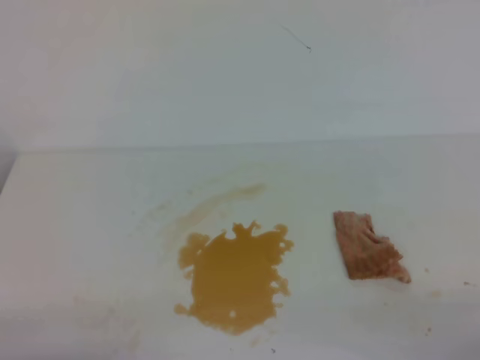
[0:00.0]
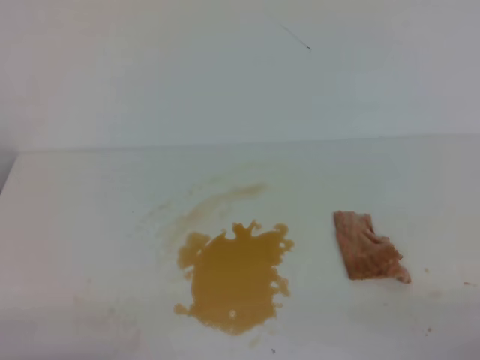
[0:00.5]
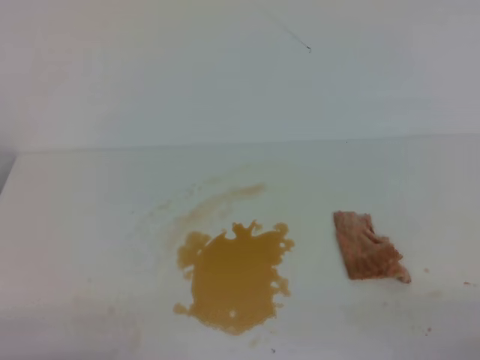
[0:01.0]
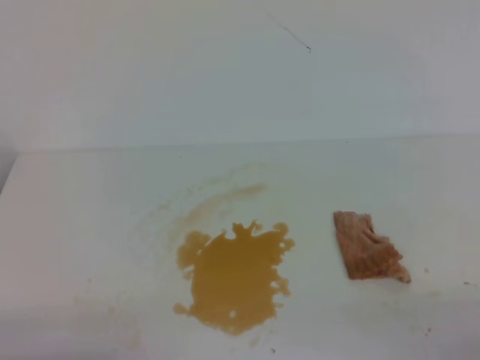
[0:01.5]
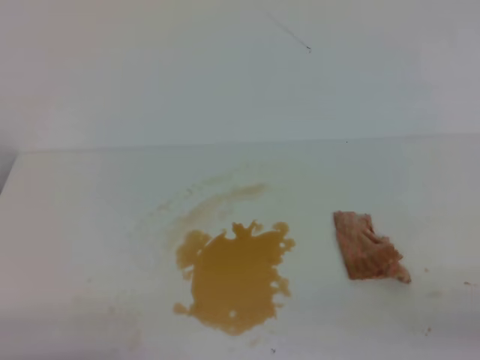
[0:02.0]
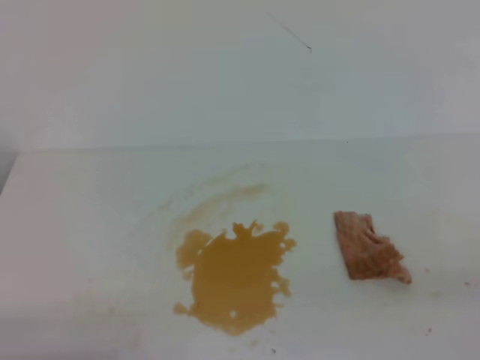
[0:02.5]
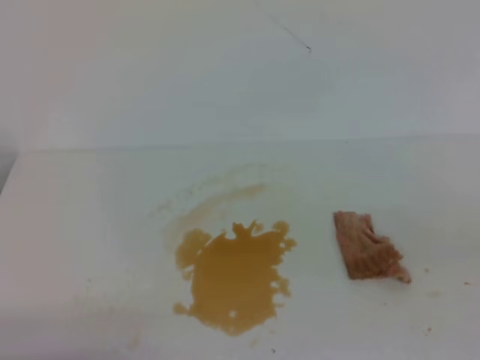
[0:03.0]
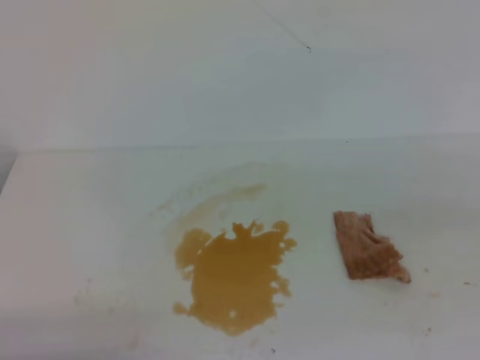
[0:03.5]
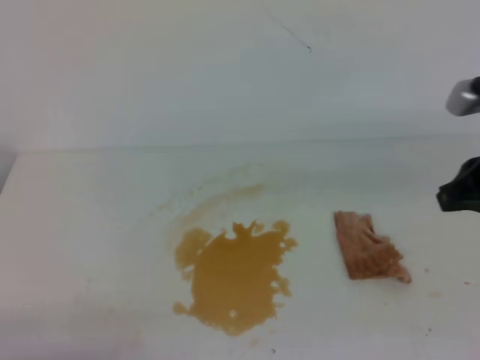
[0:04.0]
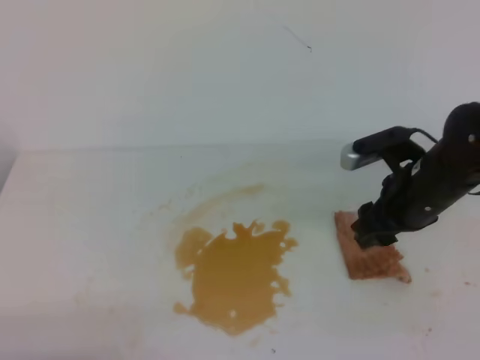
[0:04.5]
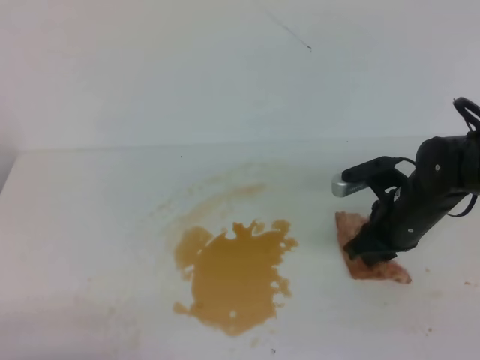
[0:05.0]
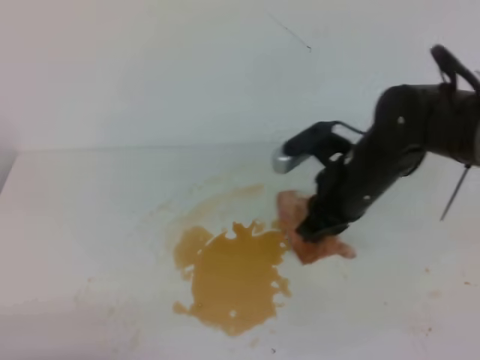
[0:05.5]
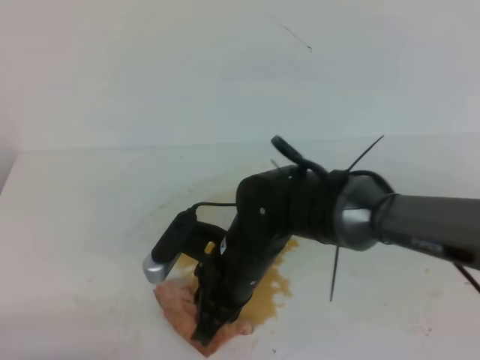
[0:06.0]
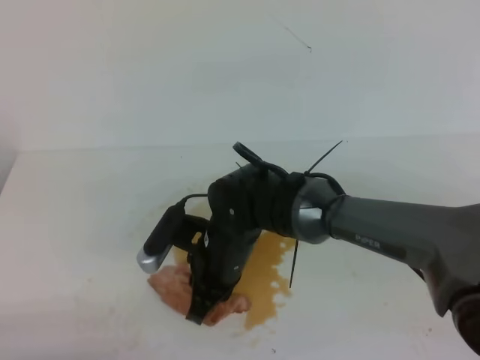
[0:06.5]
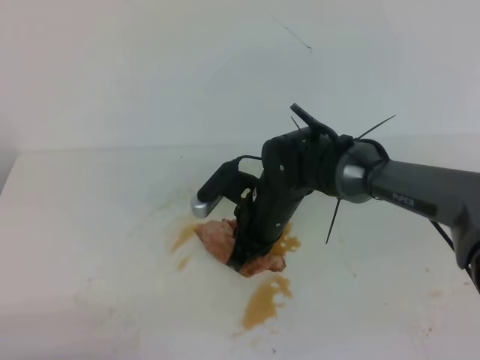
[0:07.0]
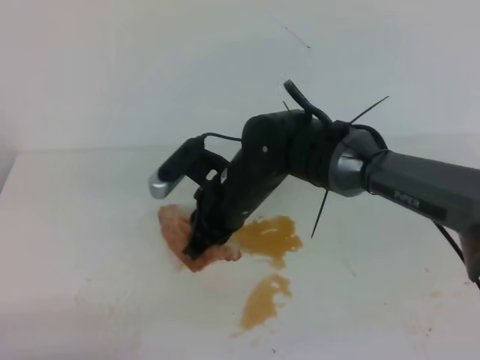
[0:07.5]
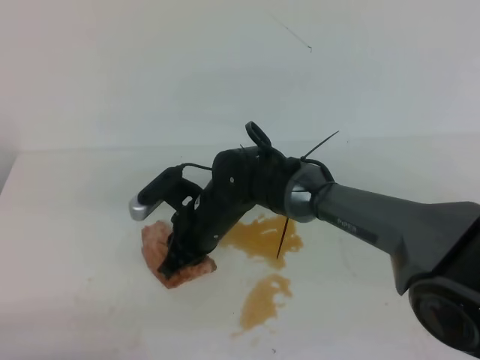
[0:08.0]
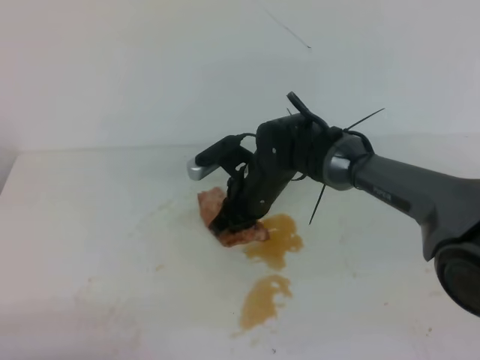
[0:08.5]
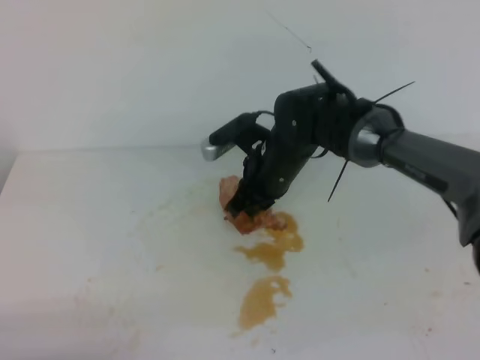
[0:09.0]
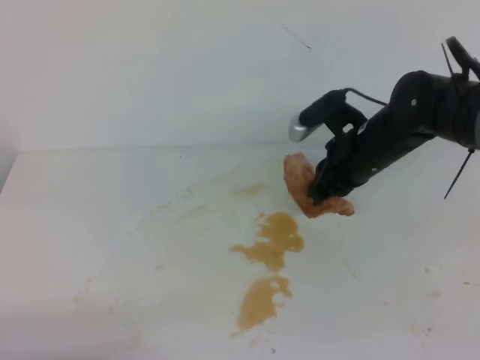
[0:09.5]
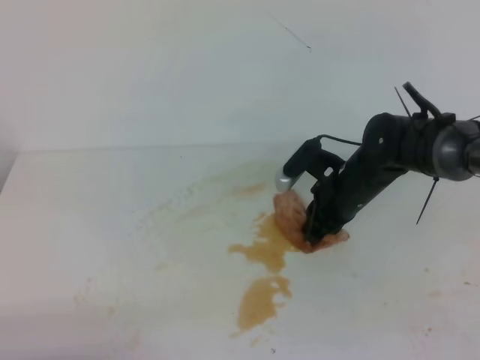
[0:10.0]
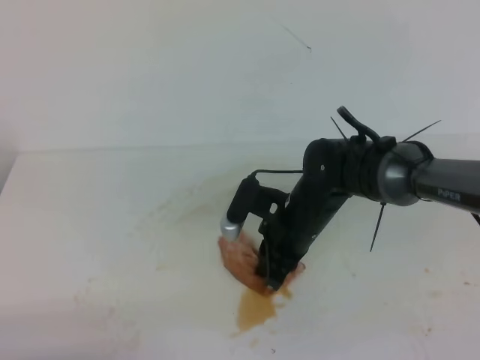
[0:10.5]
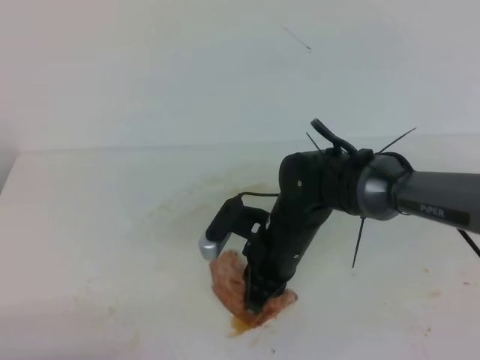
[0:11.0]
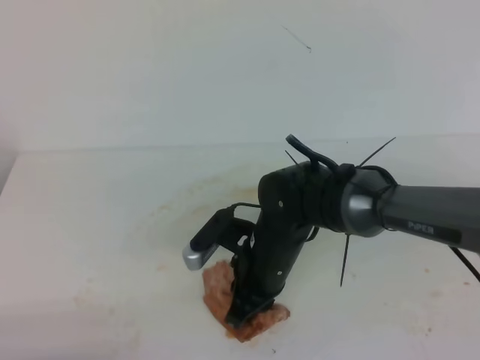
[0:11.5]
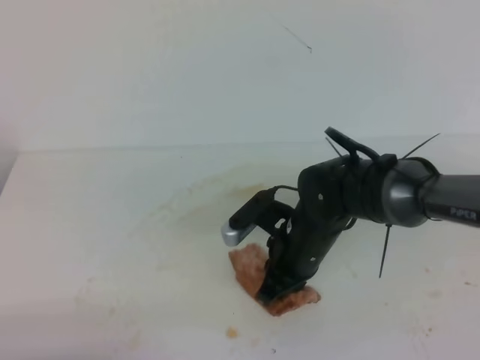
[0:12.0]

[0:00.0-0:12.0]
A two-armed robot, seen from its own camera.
0:02.0 to 0:04.0: The right gripper shifts some 25 cm forward and upward.
0:04.0 to 0:06.0: The right gripper heads to the left and downward, covering roughly 30 cm, and opens and closes again.
0:06.0 to 0:08.0: The right gripper is displaced forward by some 10 cm.
0:08.0 to 0:10.0: The right gripper goes roughly 15 cm to the right.
0:10.0 to 0:12.0: The right gripper shifts some 10 cm backward and to the left.

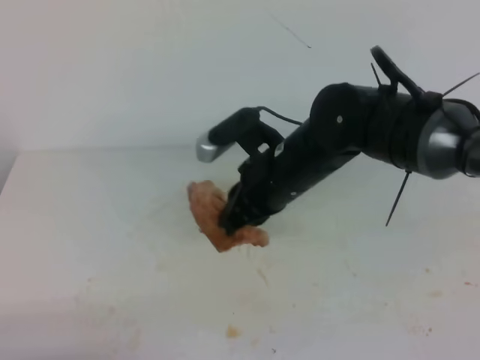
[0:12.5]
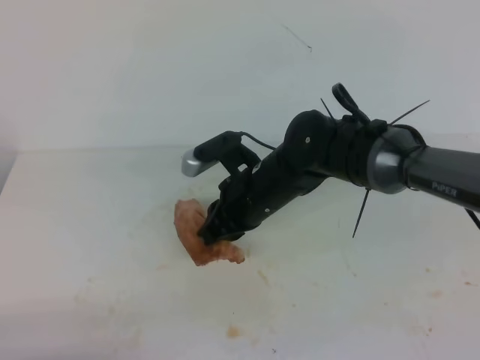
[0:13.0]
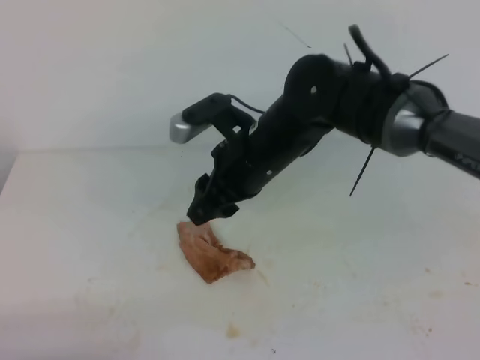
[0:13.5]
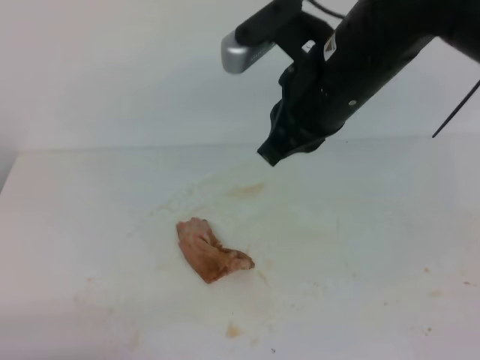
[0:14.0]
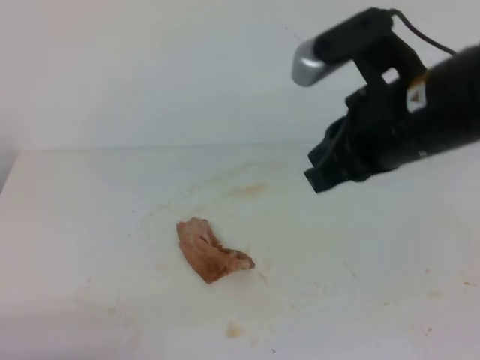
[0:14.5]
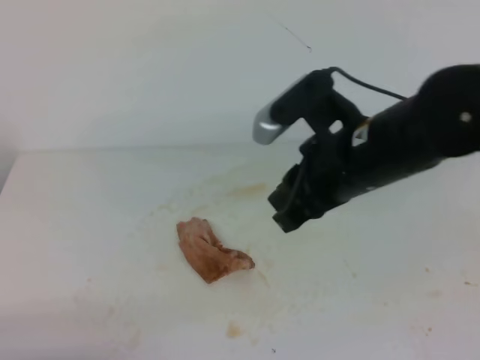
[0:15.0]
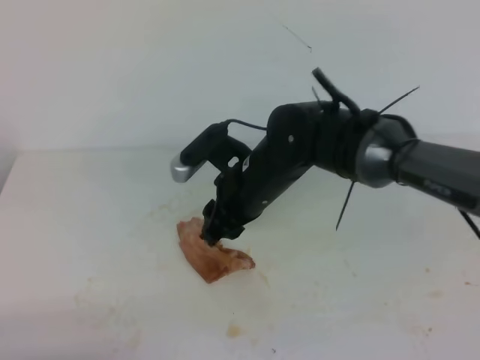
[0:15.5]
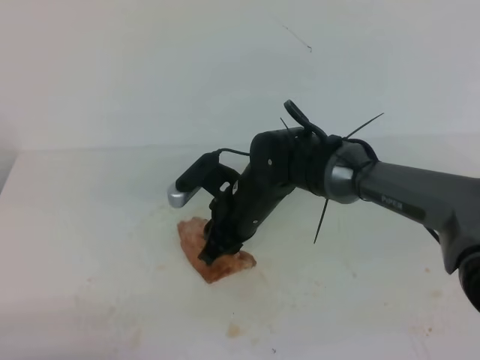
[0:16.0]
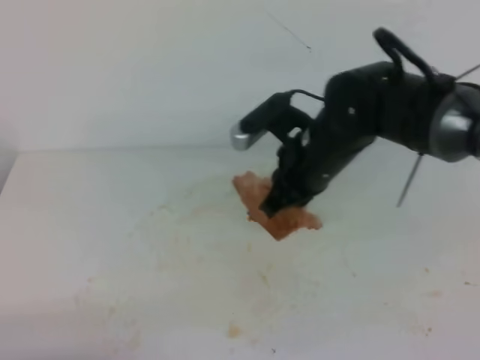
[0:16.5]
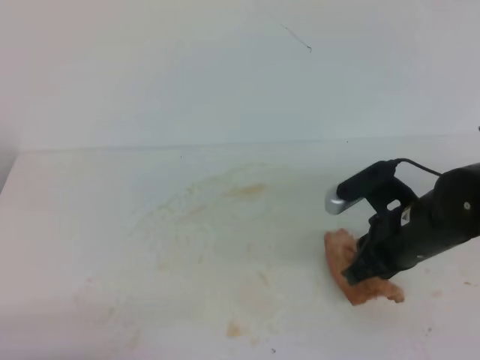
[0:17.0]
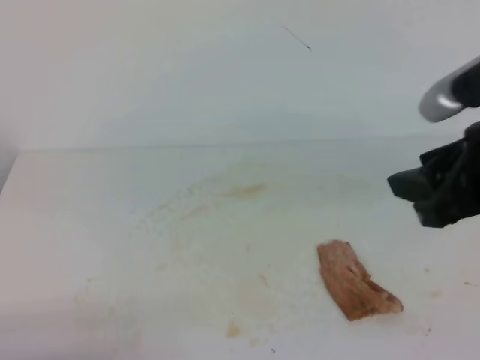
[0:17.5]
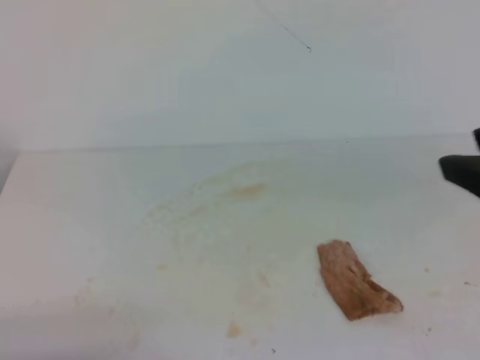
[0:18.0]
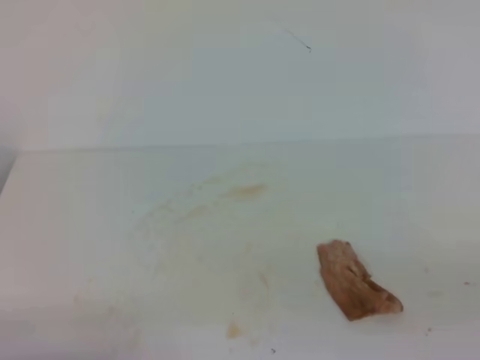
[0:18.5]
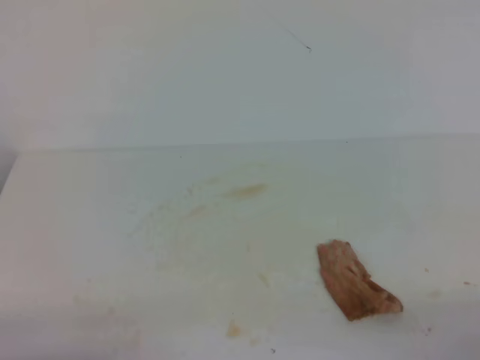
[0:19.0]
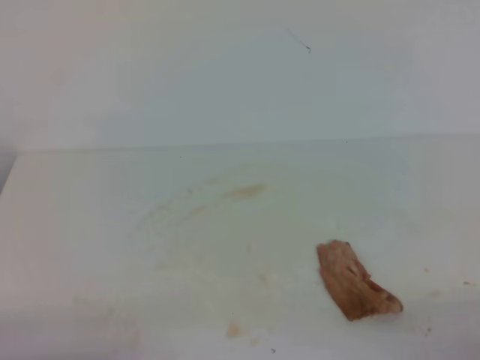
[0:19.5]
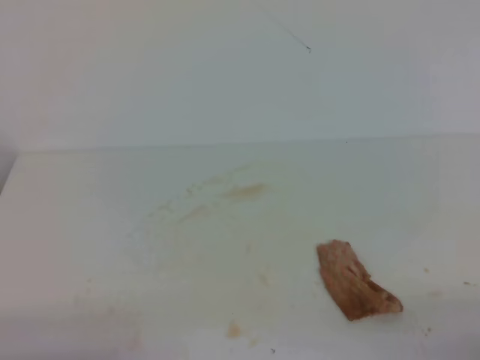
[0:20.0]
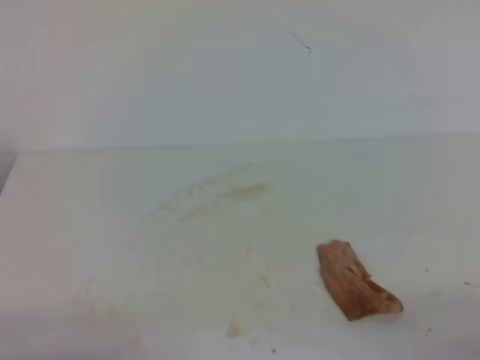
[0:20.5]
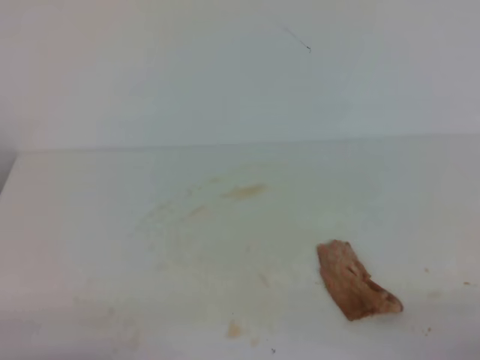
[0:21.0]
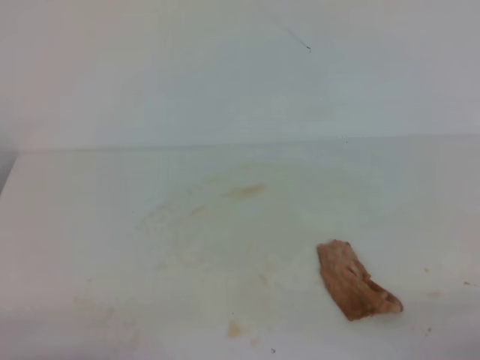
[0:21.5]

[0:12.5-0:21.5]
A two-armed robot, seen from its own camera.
0:12.5 to 0:14.5: The right gripper moves upward, to the right and backward, approximately 15 cm, and opens, then closes once more.
0:14.5 to 0:17.0: The right gripper travels downward by about 15 cm, and opens its fingers.
0:17.0 to 0:19.5: The right gripper heads backward and to the right, covering approximately 30 cm, and opens, then closes again.

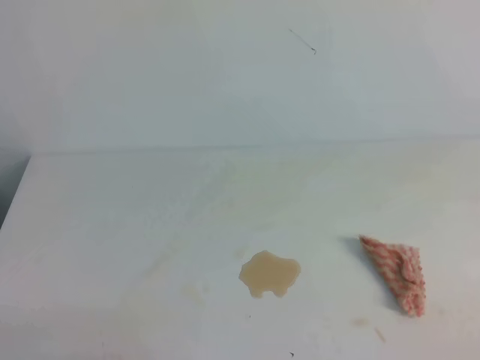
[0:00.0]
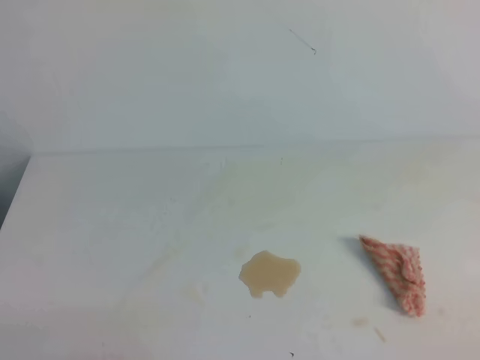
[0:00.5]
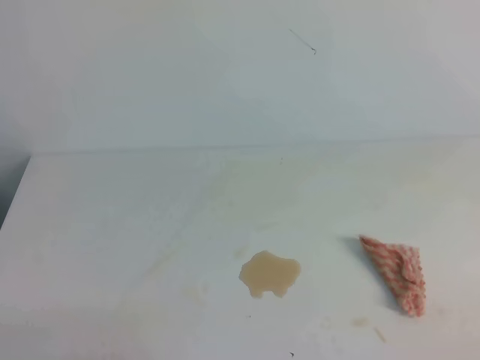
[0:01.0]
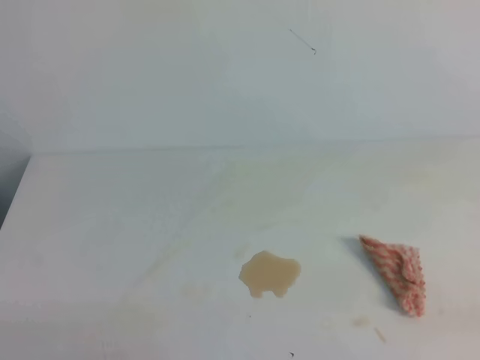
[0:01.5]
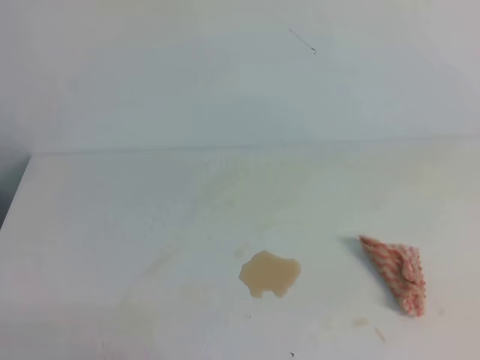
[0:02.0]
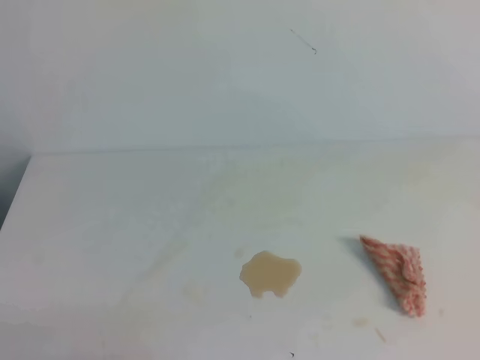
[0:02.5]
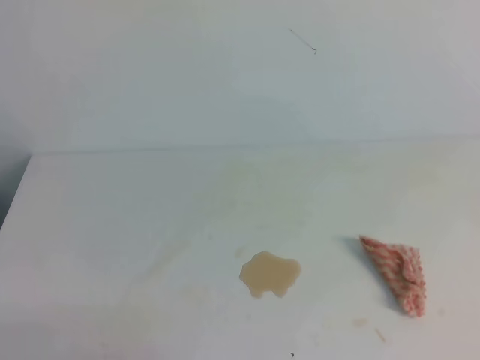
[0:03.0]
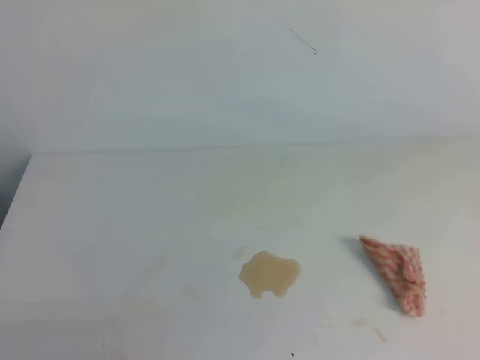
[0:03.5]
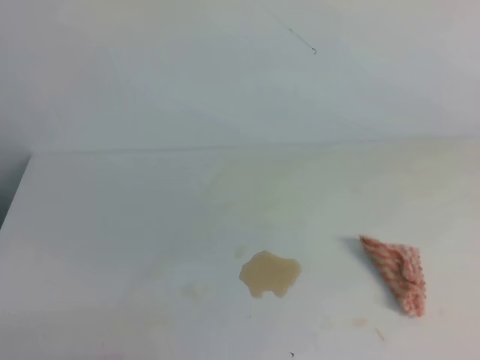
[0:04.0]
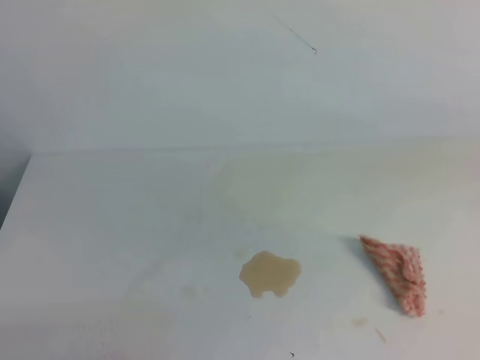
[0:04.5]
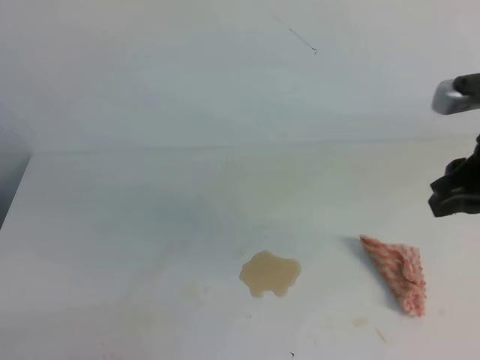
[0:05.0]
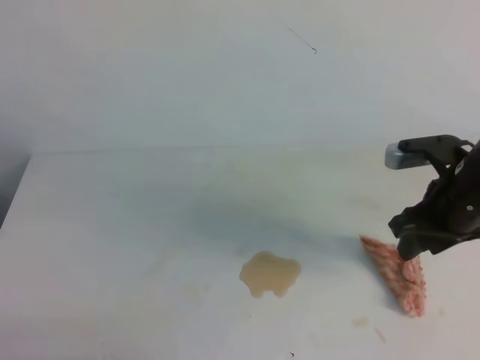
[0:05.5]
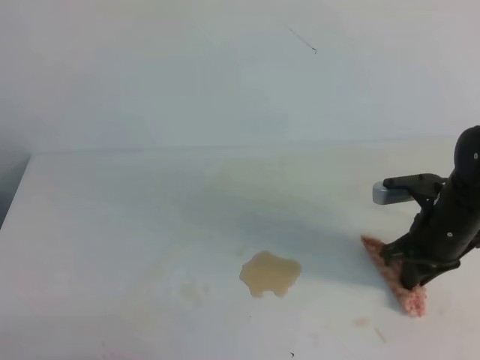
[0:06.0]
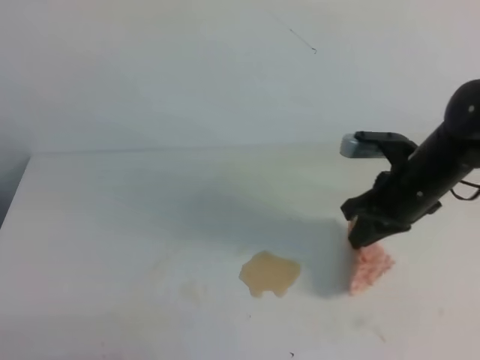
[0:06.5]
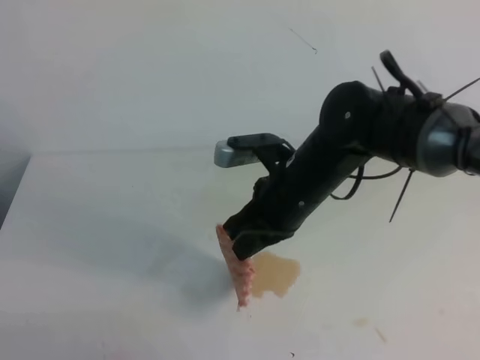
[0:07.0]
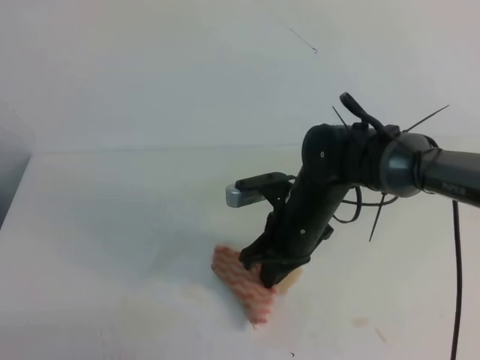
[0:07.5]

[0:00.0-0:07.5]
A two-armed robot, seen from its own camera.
0:04.0 to 0:05.5: The right gripper heads downward, forward and to the left, covering some 25 cm, and opens up.
0:05.5 to 0:07.5: The right gripper is displaced to the left by some 20 cm, and closes its fingers.
